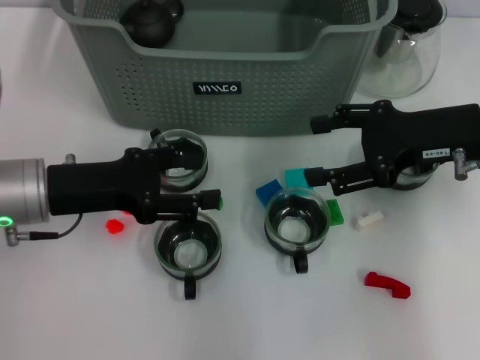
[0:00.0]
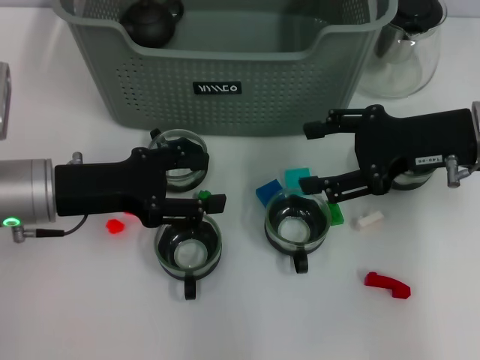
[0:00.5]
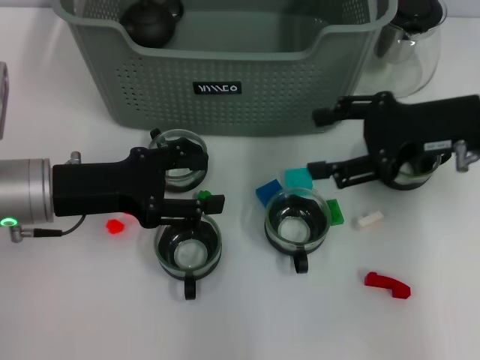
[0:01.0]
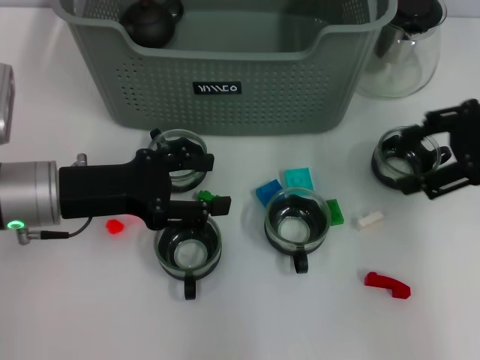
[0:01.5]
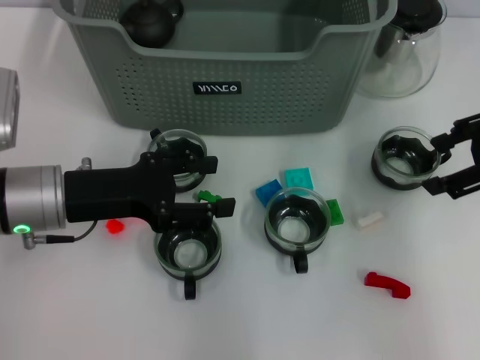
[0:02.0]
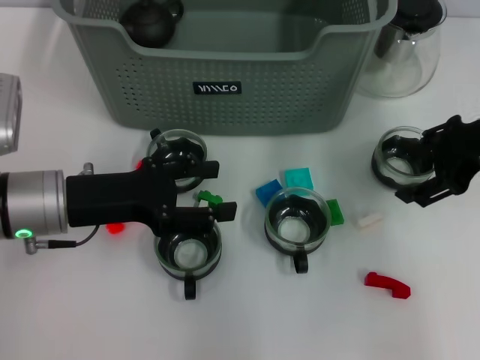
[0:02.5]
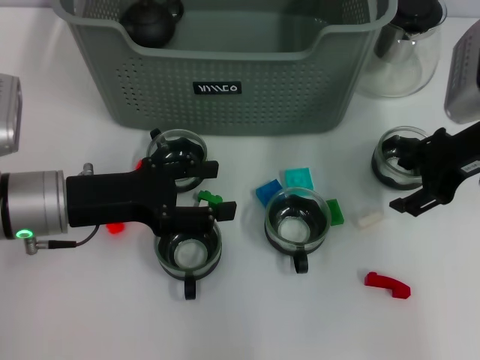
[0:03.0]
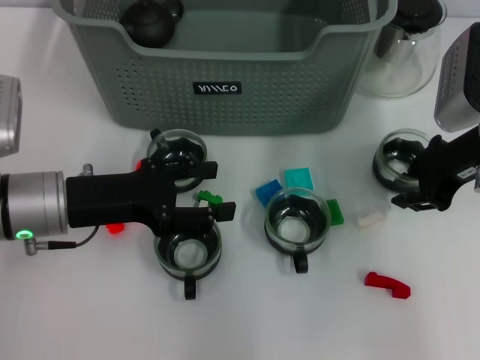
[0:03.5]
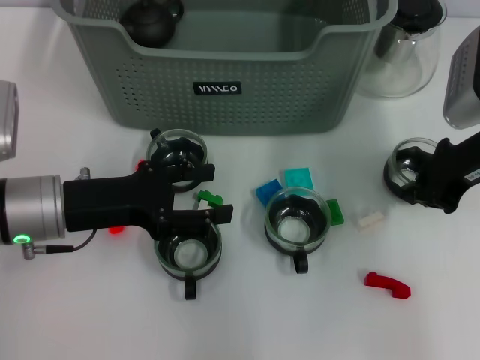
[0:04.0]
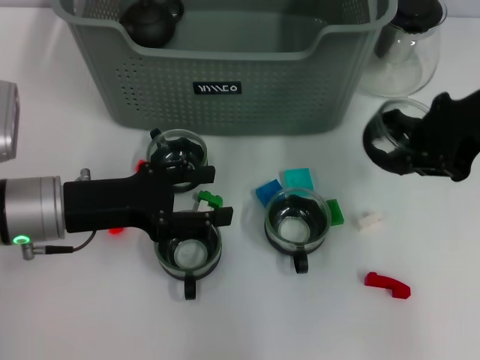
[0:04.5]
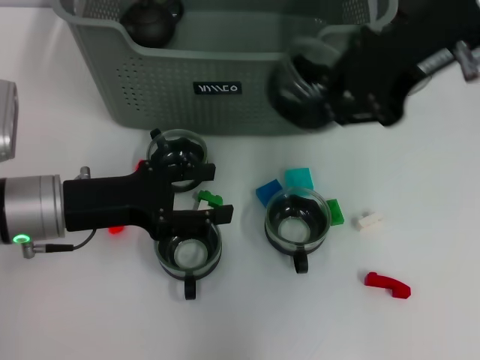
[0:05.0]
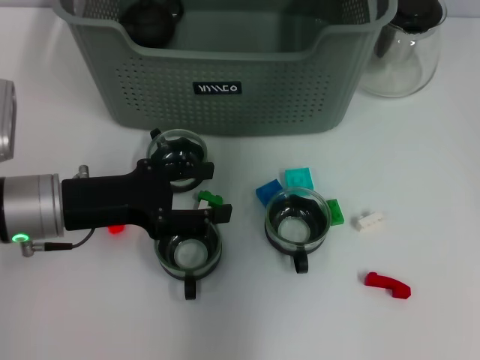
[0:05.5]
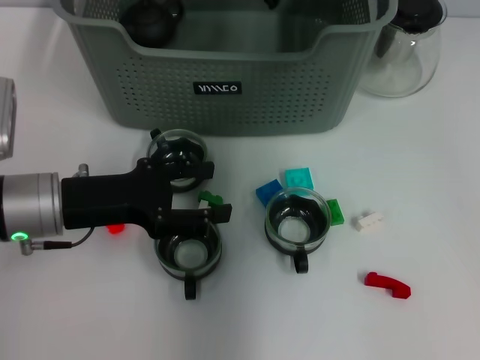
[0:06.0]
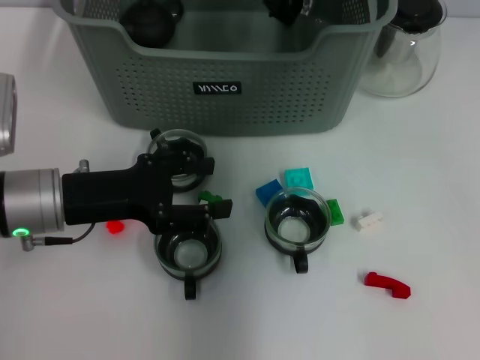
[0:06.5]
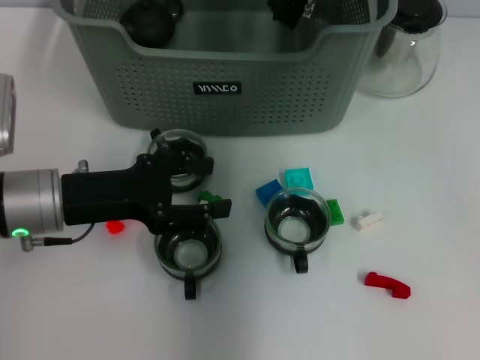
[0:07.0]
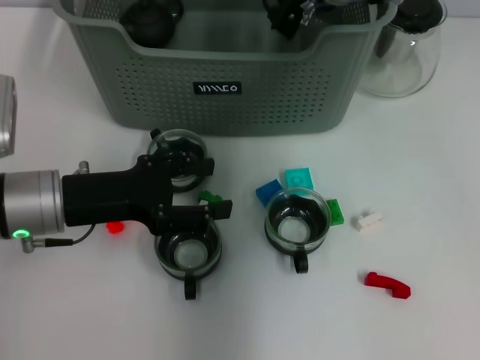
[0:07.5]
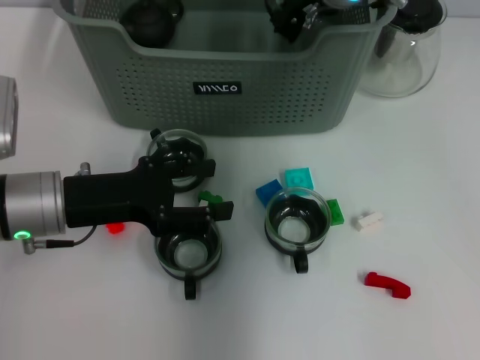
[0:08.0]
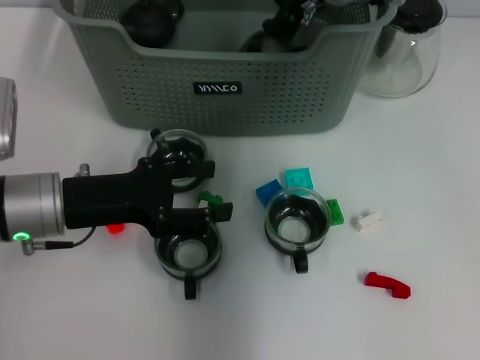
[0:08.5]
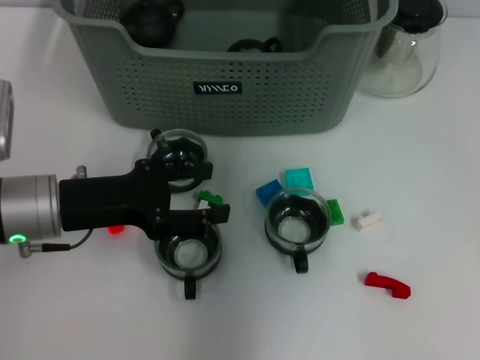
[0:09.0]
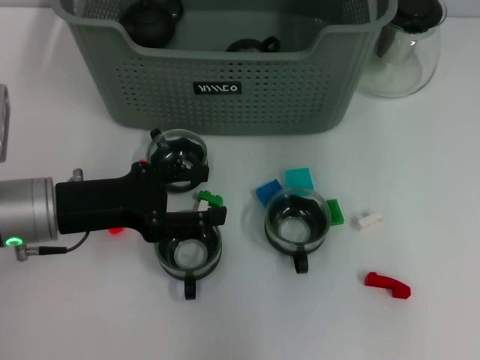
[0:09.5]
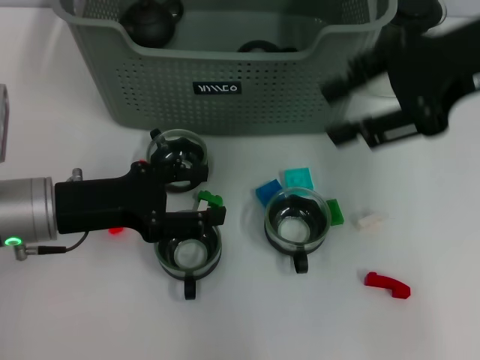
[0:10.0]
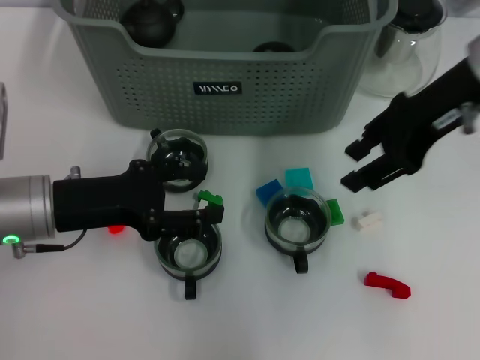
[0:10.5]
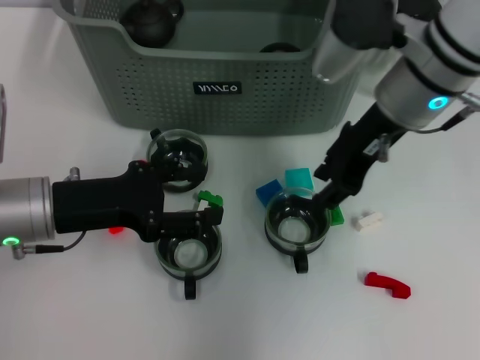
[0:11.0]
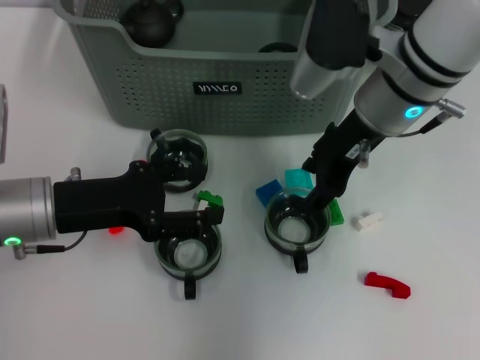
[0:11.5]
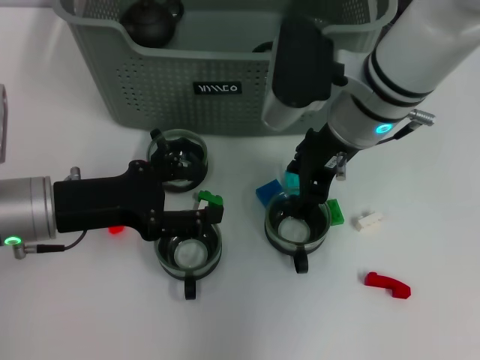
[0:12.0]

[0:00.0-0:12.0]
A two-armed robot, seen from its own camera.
Task of the whole recording: pick up the teacup on the table and place it into the storage bin, pick up the block on the table and place it into the storage bin.
Step, 0:00.0 to 0:03.5: Grasp the cup with right gripper.
Step, 0:04.0 to 0:08.5: Place the cup in the storage box with right gripper.
0:00.0 to 0:02.0: The right gripper is displaced to the right and upward by roughly 10 cm.
0:02.0 to 0:04.0: The right gripper moves downward, about 5 cm, and closes its fingers.
0:04.0 to 0:06.0: The right gripper shifts about 25 cm to the left, forward and upward.
0:06.0 to 0:08.0: The grippers make only small movements.
0:08.0 to 0:10.0: The right gripper is displaced to the right, backward and upward by some 20 cm, and opens.
0:10.0 to 0:12.0: The right gripper moves to the left and downward, about 15 cm.

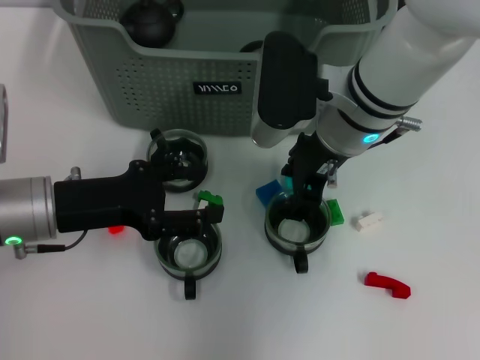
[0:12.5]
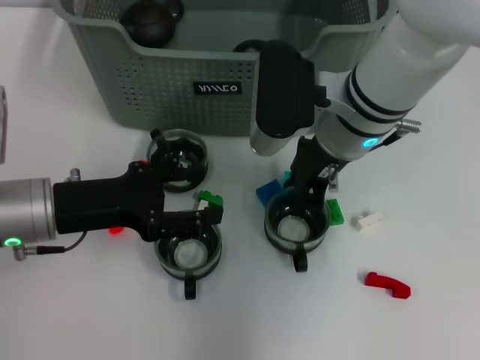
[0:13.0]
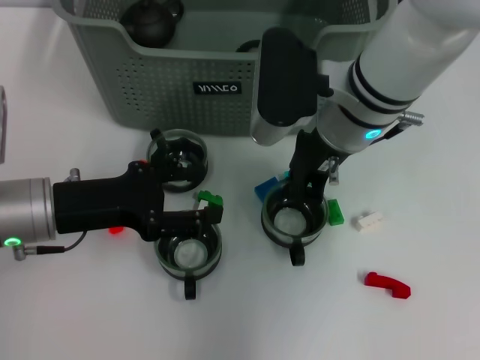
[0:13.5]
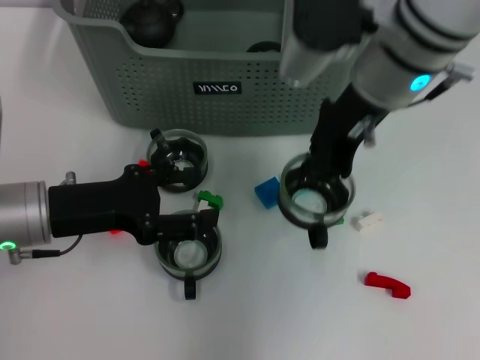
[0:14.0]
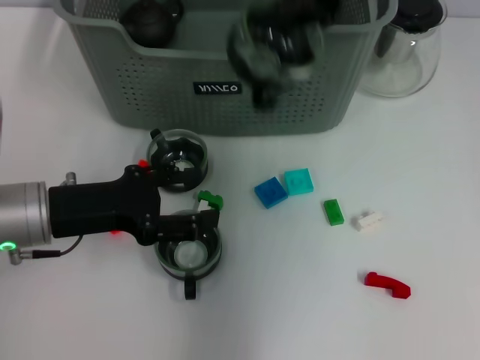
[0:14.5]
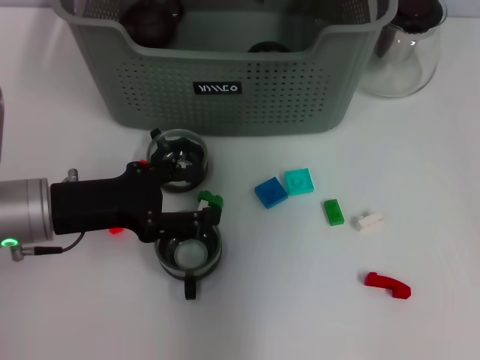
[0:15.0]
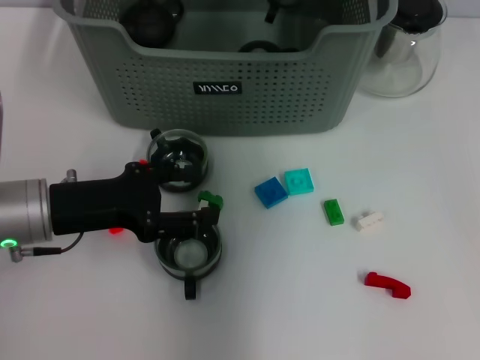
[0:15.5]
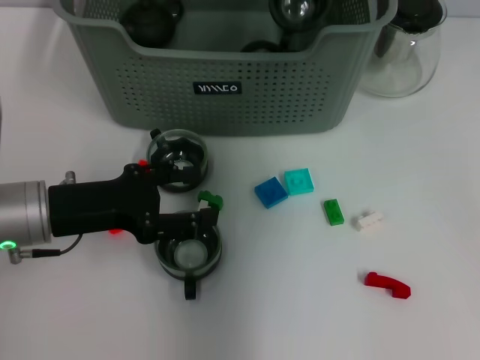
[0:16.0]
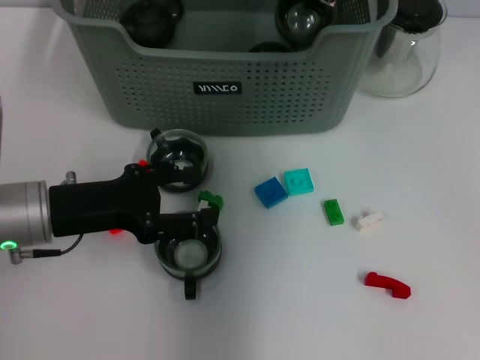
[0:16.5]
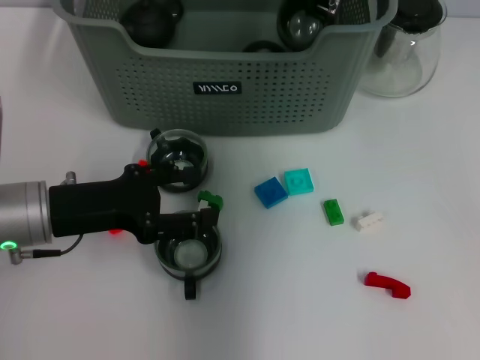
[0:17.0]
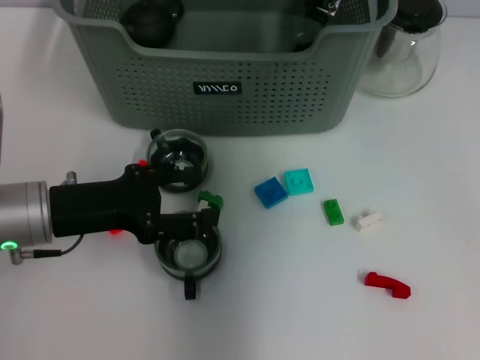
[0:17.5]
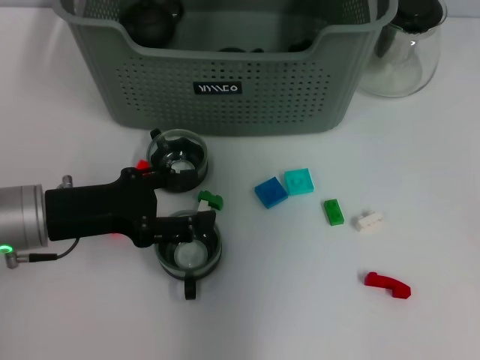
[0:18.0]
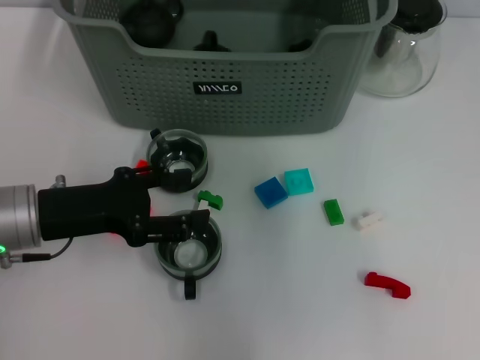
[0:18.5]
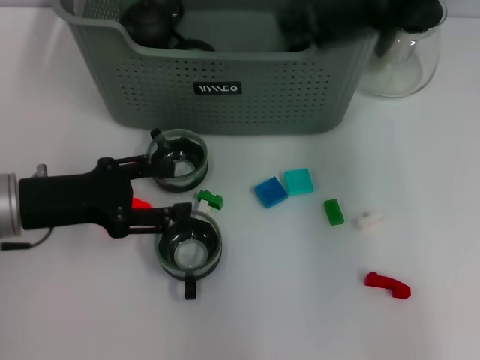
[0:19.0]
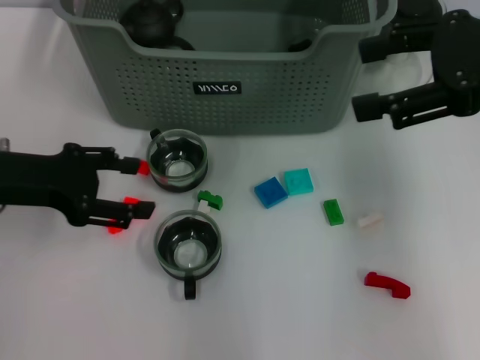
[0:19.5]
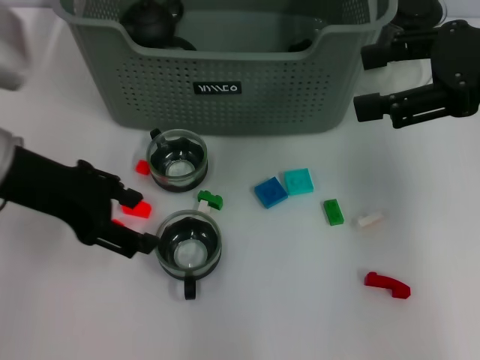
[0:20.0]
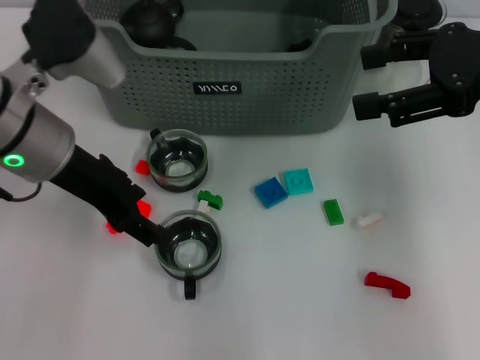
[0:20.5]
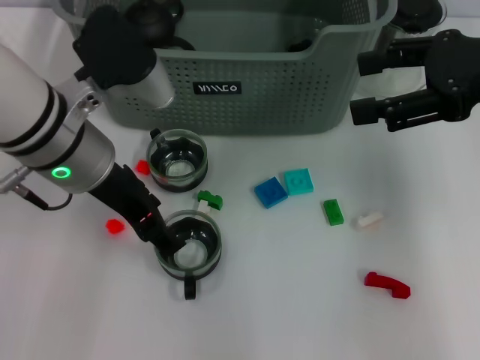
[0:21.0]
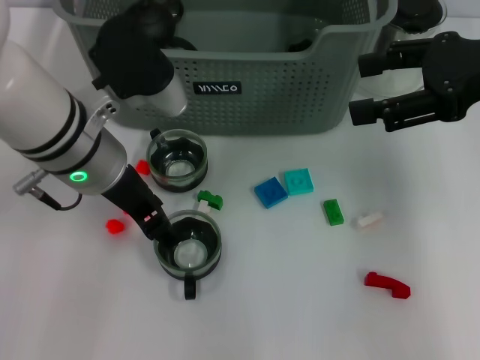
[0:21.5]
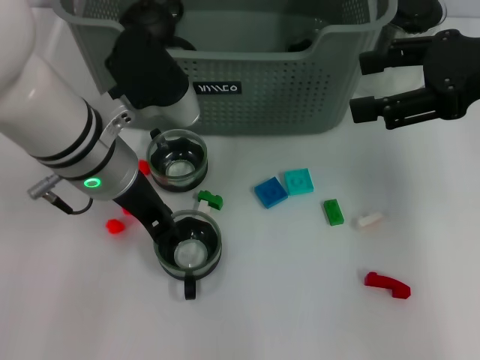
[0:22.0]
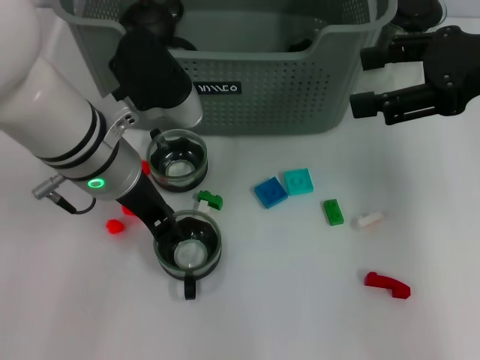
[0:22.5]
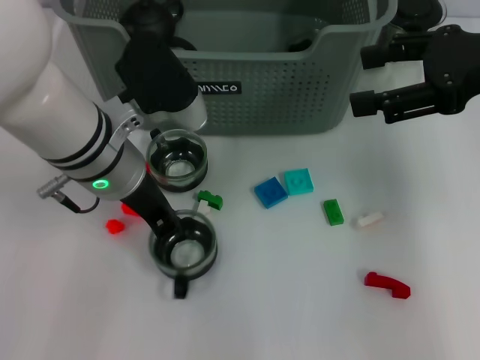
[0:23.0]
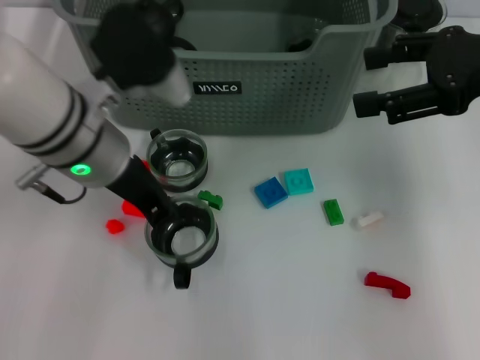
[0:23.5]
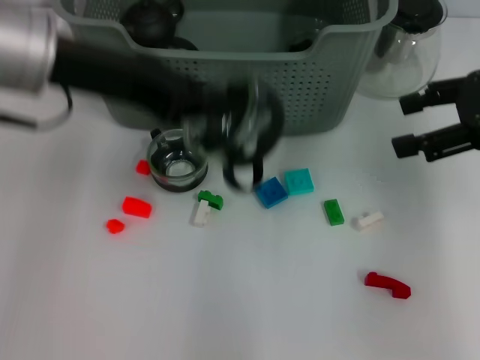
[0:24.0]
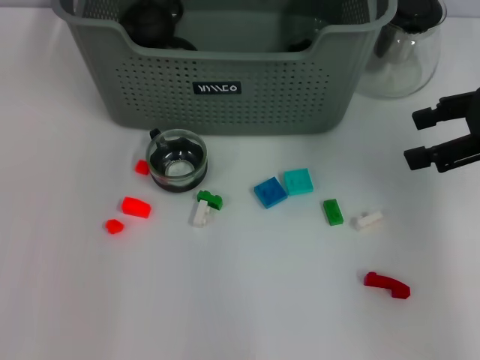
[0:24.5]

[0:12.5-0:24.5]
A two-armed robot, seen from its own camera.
Task of the whole recording: pick up the teacup on the table and place it into the storage bin, pick up the block on the table and place it into the storage bin.
Step, 0:13.5 to 0:22.5: Grasp the cup with left gripper.
0:12.5 to 0:14.5: The right gripper travels upward by some 20 cm, and closes up.
0:14.5 to 0:16.5: The right gripper shifts approximately 15 cm downward and forward.
0:16.5 to 0:18.5: The right gripper moves upward and backward, about 15 cm, and opens up.
0:18.5 to 0:20.5: The right gripper goes roughly 20 cm to the right, downward and backward. The left gripper moves upward and to the right, some 10 cm.
0:20.5 to 0:22.5: The left gripper travels to the right by some 5 cm.
0:22.5 to 0:24.5: The left gripper heads upward and forward, covering about 20 cm, and closes up. Meanwhile the right gripper shifts by about 5 cm.

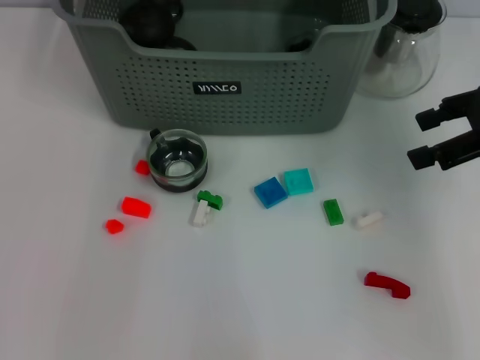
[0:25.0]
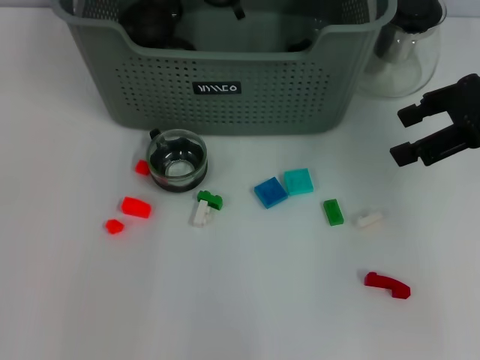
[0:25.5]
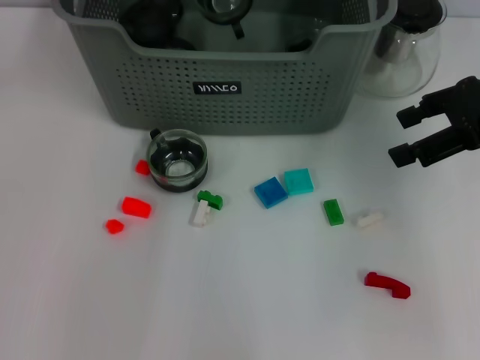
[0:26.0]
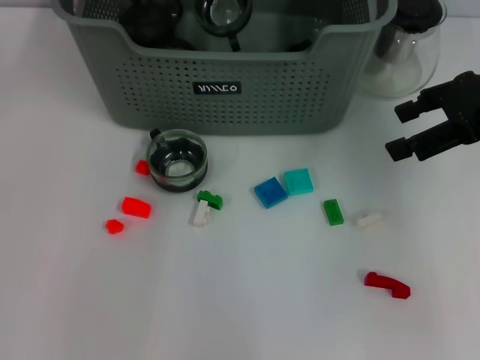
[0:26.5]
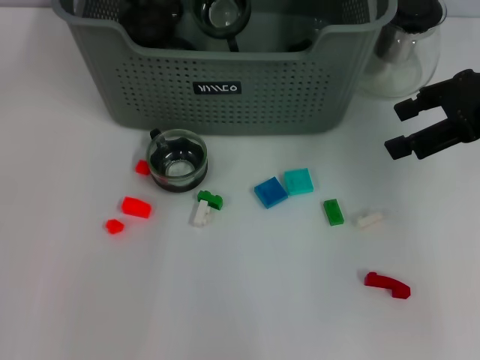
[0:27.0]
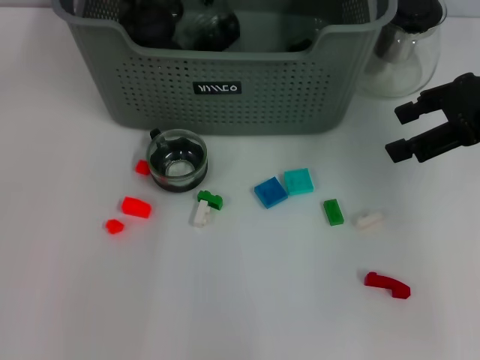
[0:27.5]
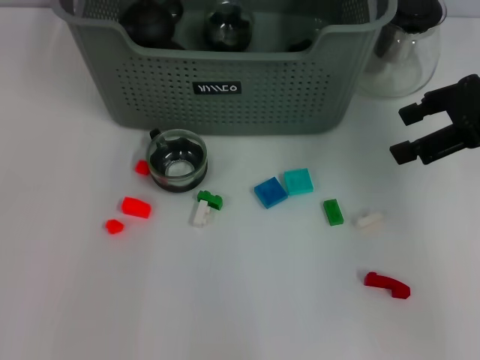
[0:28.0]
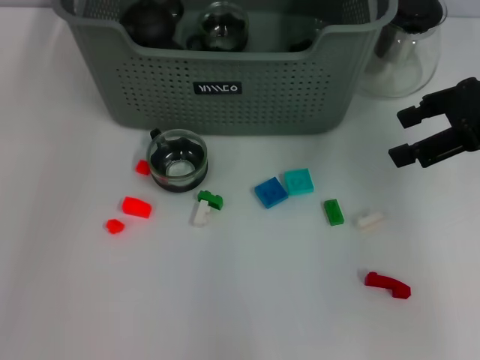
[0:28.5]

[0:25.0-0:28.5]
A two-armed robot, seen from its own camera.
Task of the whole recording: pick up the teacup on the table and place it into the storage bin, pick up the block on the table and place it into the storage bin.
Step, 0:25.0 to 0:27.5: Place the cup in the storage box with left gripper.
0:25.0 to 0:27.0: The left gripper heads downward, covering approximately 5 cm.
0:27.0 to 0:28.5: The left gripper goes some 20 cm backward, upward and to the left, and opens up.
